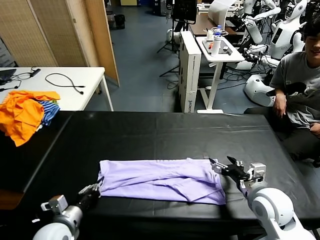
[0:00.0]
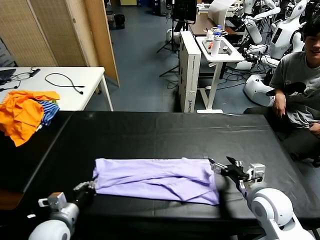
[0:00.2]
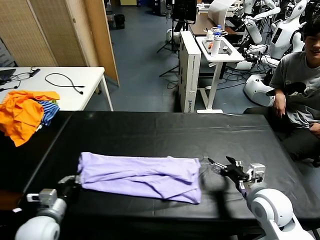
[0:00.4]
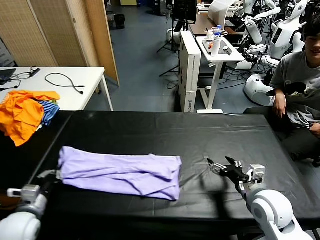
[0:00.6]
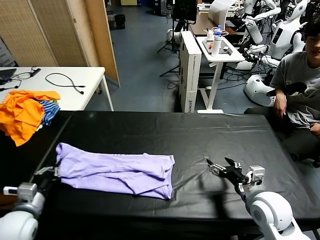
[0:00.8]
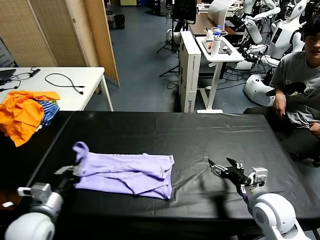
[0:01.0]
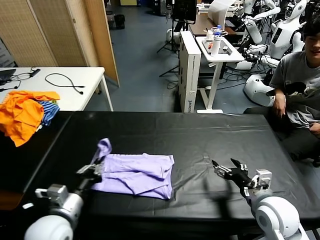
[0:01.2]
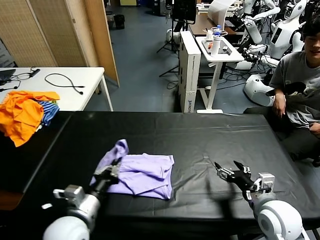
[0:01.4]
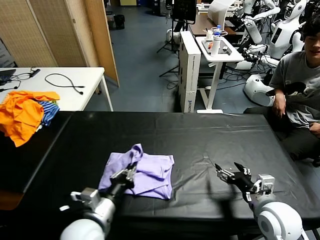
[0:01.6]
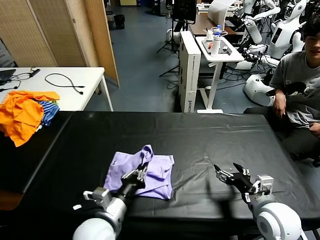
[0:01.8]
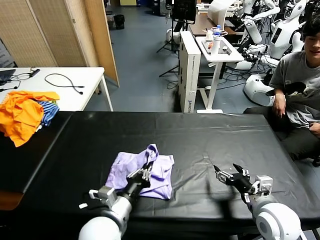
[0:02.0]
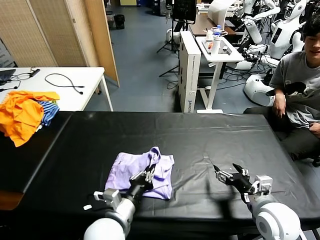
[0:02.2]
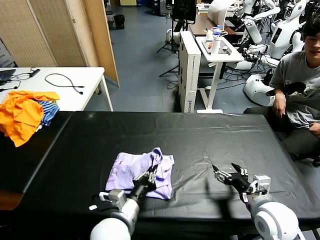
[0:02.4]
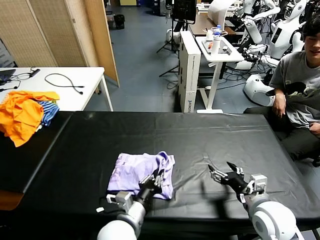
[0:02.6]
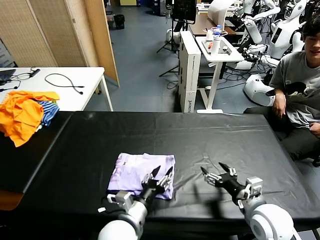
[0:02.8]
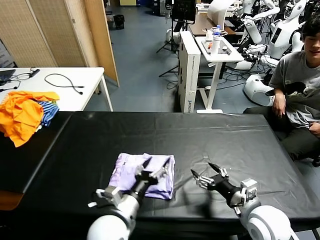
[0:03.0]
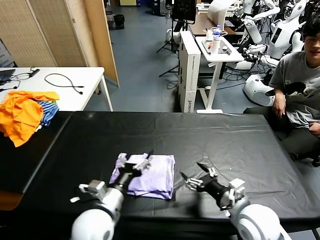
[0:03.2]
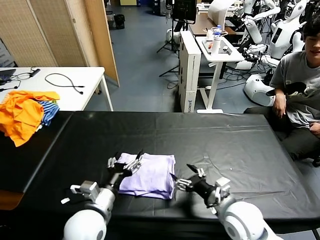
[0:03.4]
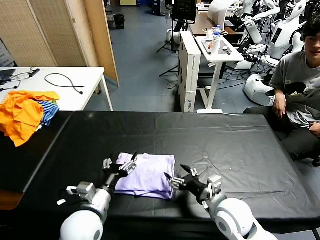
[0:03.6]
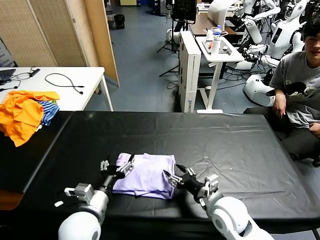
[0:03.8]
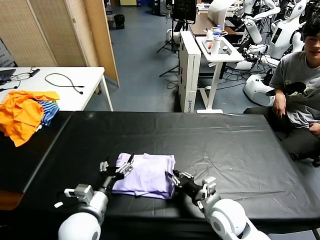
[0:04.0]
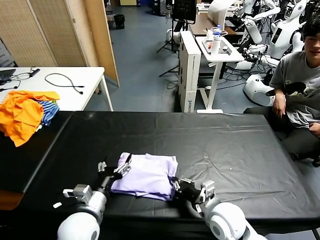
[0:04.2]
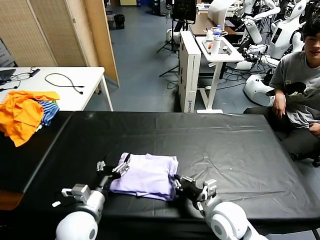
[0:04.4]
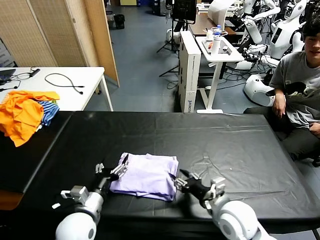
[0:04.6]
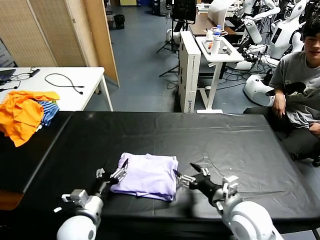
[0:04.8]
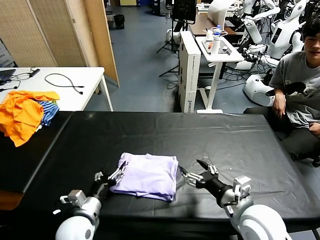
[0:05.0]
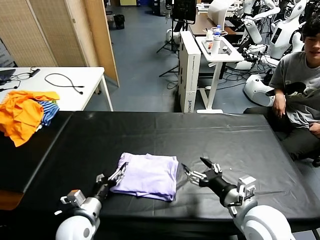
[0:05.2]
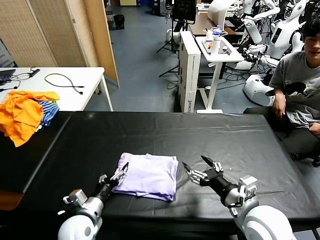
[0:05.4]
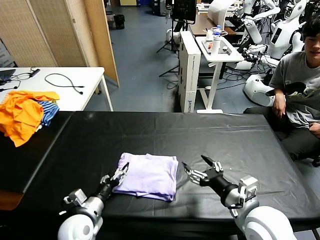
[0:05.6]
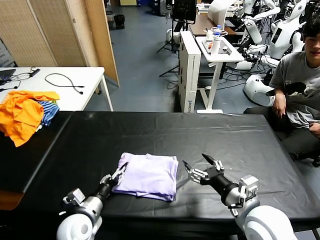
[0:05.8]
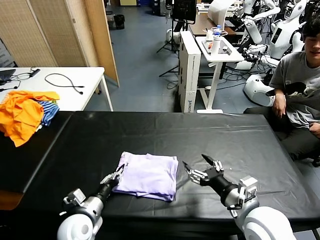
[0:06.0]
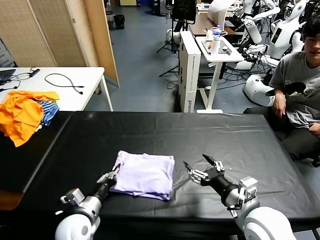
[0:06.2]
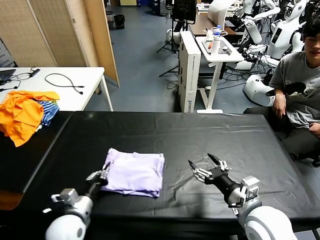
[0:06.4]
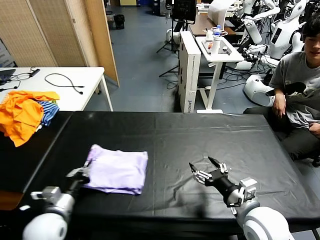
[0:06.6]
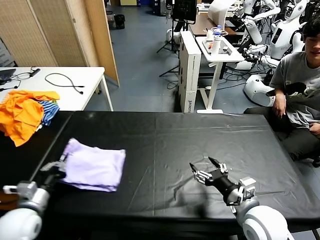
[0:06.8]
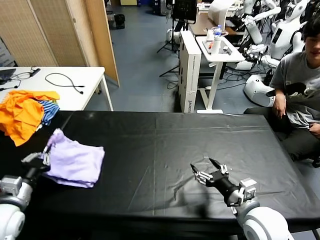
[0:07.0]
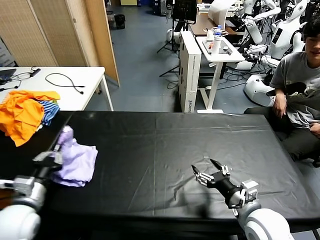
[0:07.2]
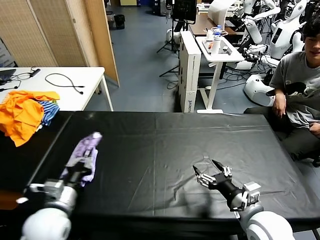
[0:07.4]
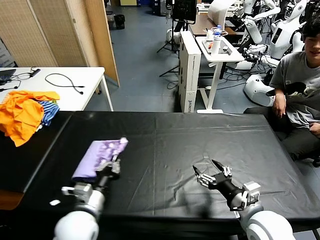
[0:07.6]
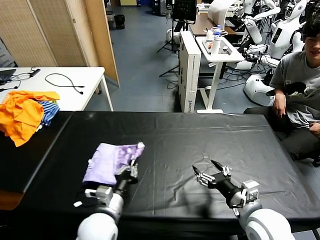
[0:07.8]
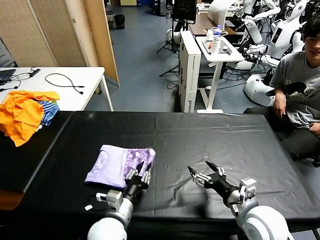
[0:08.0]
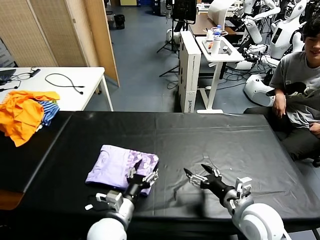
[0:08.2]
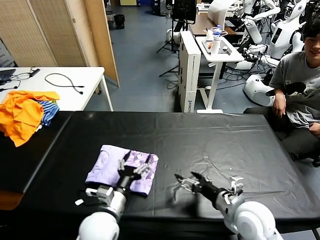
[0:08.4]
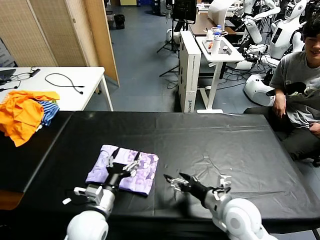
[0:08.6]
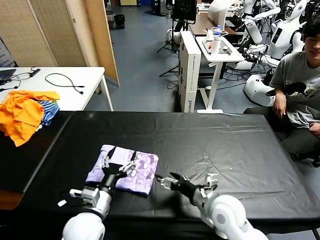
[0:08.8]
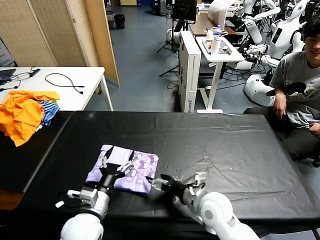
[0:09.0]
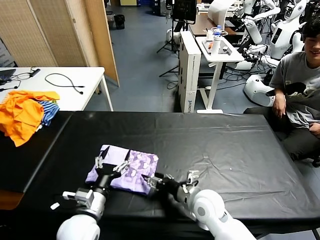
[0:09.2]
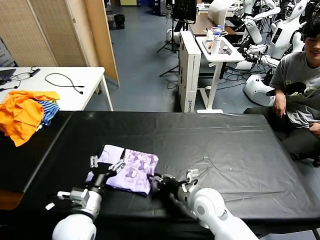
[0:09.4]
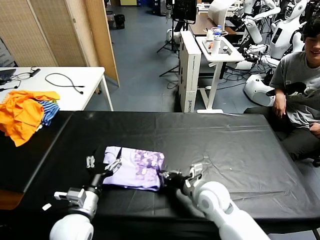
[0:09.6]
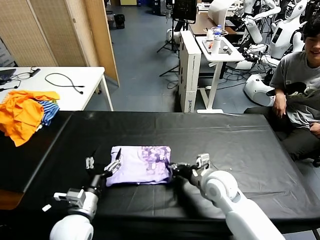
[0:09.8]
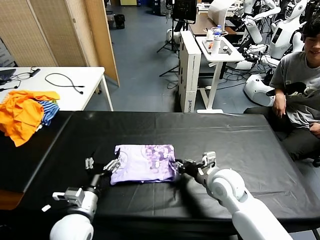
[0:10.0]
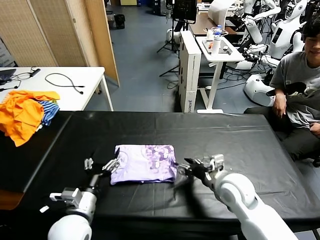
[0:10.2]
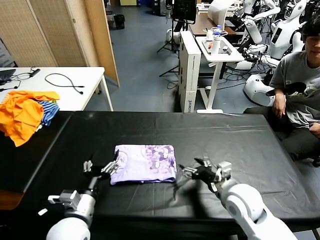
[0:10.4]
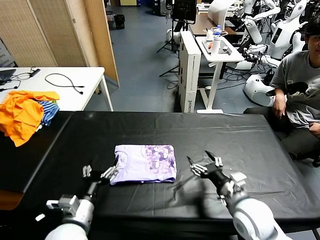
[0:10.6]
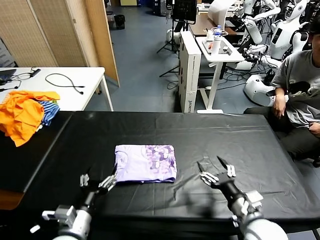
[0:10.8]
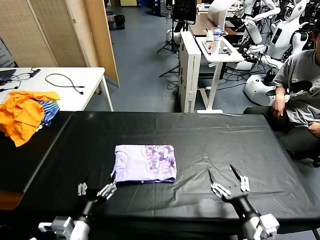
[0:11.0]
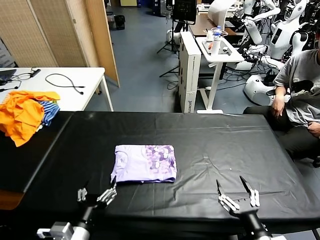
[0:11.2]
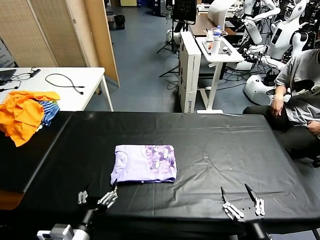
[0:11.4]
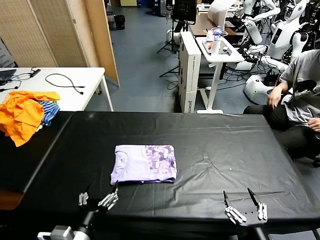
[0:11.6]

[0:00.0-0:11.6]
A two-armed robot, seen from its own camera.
Task of the whole recording: fold and organize the clothes.
Step, 0:00.4 to 0:04.8: use the left gripper to drag the left edge of the fabric to the left and folds it over the right edge.
Step, 0:05.0 to 0:08.2: Flip the folded clothes over with left gripper.
Step, 0:08.6 to 0:10.2: Drag the clothes to the center of the table.
0:00.0 to 0:01.4: The left gripper travels upward and to the right by roughly 10 cm.
0:01.4 to 0:02.8: The left gripper heads to the right and downward, covering about 15 cm, and opens its fingers.
0:02.8 to 0:04.4: The two grippers go roughly 10 cm to the left. The right gripper closes up. The left gripper opens.
0:04.4 to 0:05.8: The right gripper shifts about 10 cm upward and to the right, and opens its fingers, while the left gripper heads downward, covering roughly 5 cm.
0:05.8 to 0:07.2: The left gripper is displaced upward and to the left by about 15 cm, and closes up.
0:07.2 to 0:08.8: The left gripper goes approximately 15 cm to the right, and opens its fingers; the right gripper travels to the left by roughly 5 cm.
0:08.8 to 0:10.2: The right gripper travels forward by about 5 cm, and closes.
0:10.2 to 0:11.6: The left gripper heads backward, covering approximately 10 cm, while the right gripper moves backward, roughly 25 cm, and opens its fingers.
